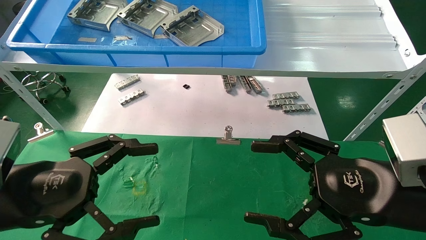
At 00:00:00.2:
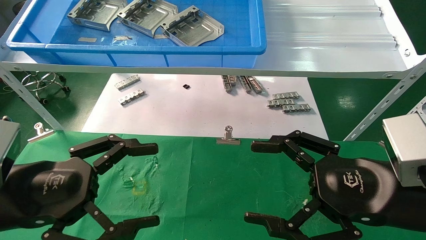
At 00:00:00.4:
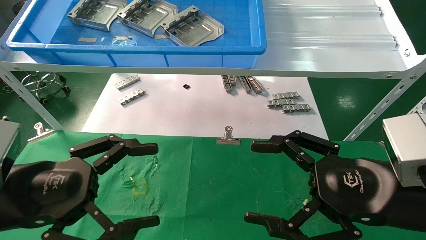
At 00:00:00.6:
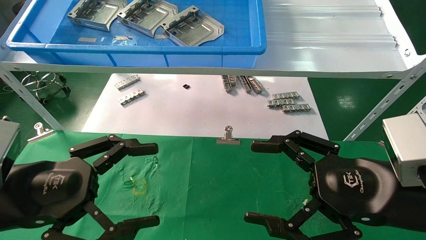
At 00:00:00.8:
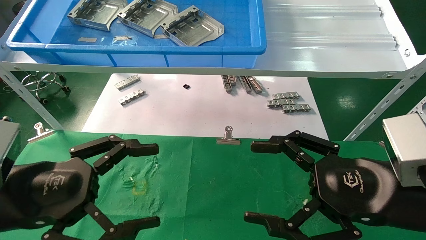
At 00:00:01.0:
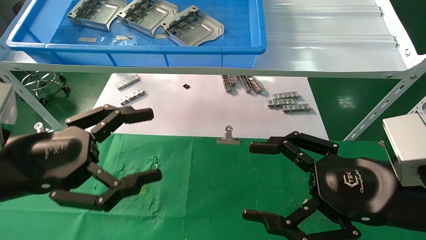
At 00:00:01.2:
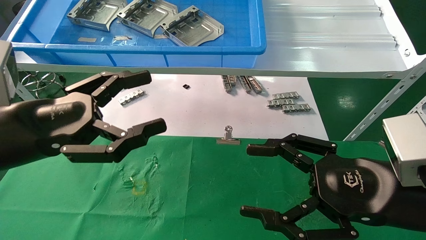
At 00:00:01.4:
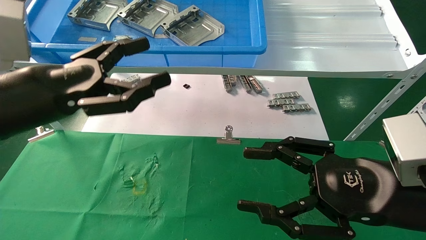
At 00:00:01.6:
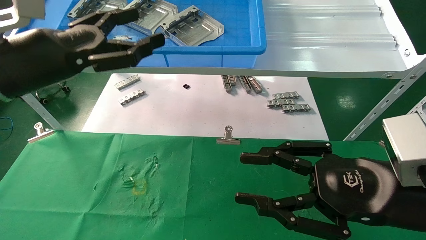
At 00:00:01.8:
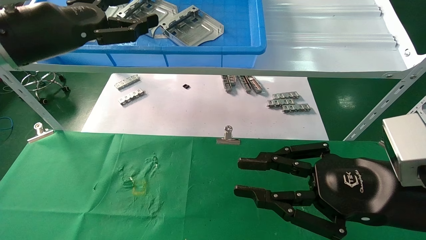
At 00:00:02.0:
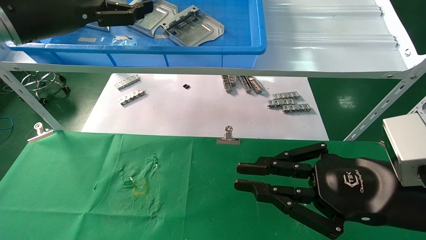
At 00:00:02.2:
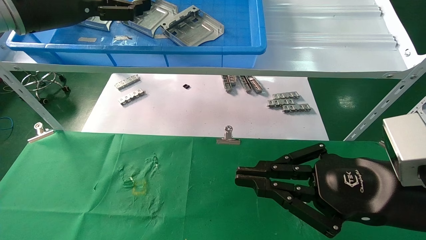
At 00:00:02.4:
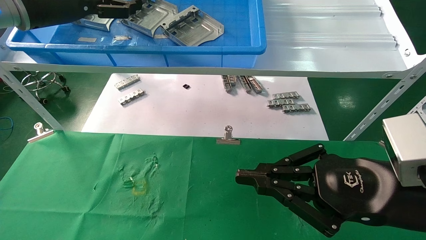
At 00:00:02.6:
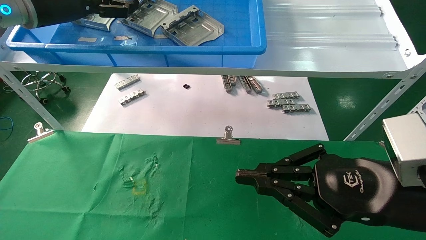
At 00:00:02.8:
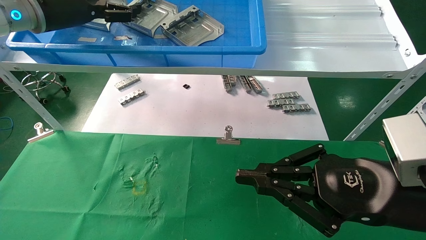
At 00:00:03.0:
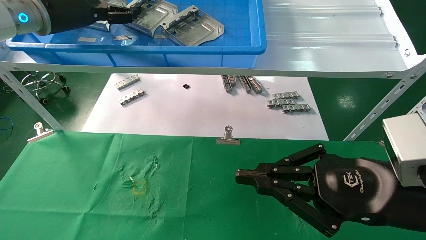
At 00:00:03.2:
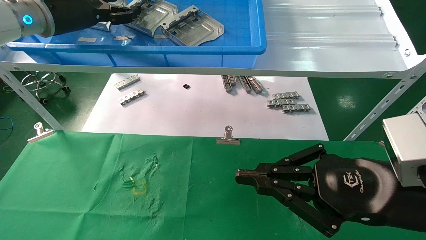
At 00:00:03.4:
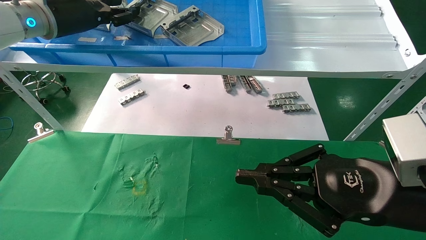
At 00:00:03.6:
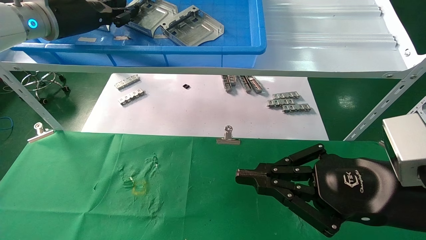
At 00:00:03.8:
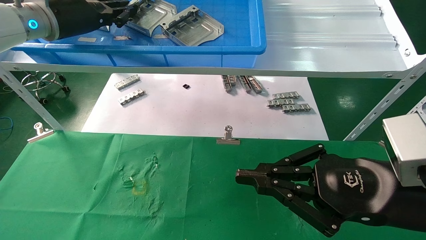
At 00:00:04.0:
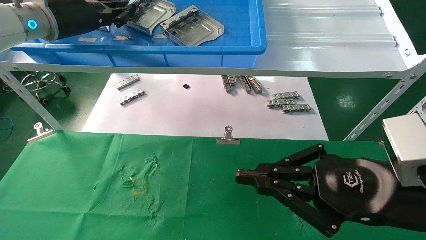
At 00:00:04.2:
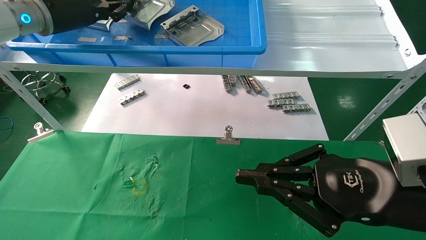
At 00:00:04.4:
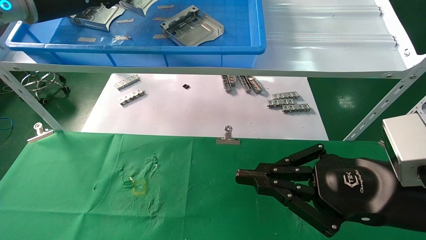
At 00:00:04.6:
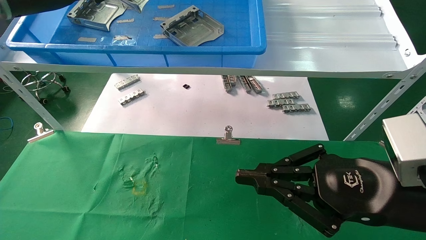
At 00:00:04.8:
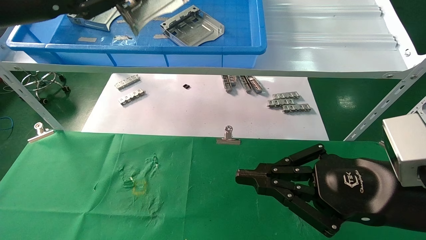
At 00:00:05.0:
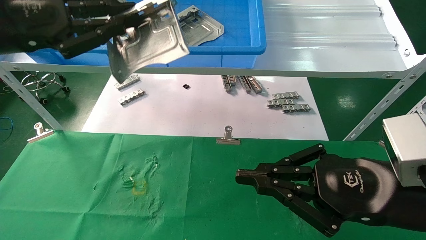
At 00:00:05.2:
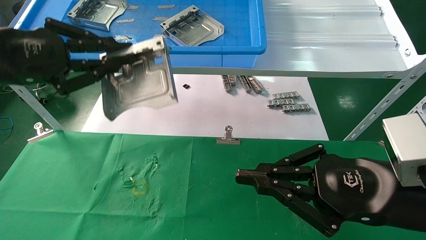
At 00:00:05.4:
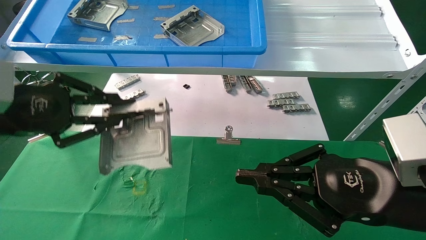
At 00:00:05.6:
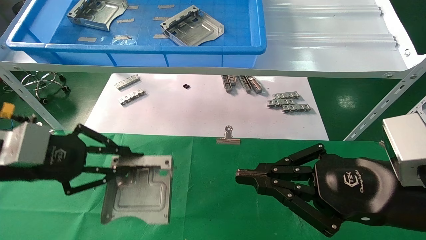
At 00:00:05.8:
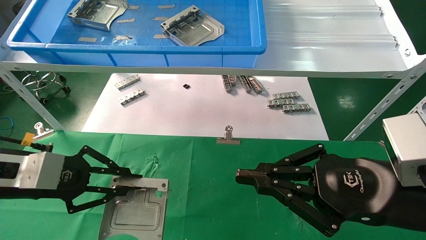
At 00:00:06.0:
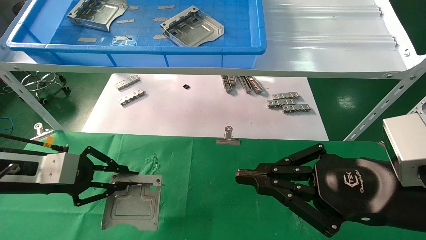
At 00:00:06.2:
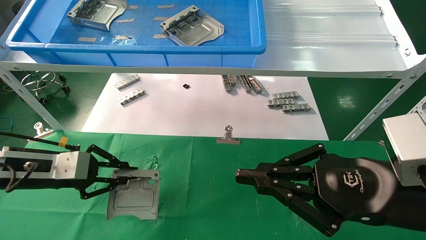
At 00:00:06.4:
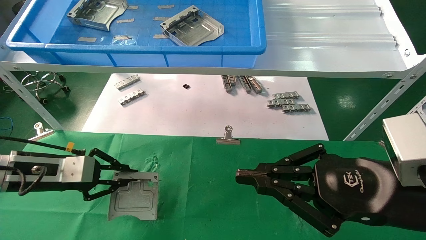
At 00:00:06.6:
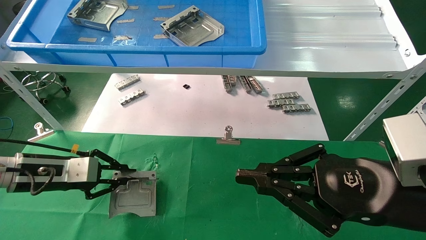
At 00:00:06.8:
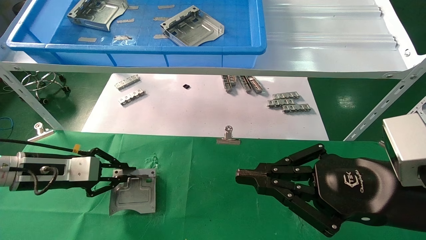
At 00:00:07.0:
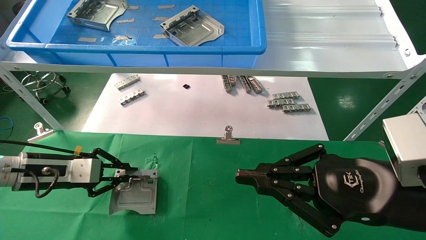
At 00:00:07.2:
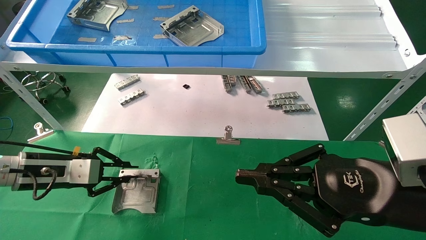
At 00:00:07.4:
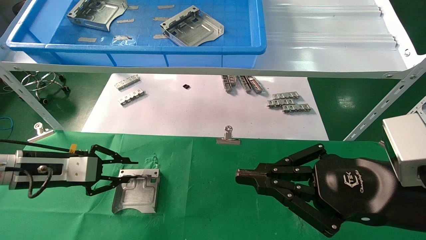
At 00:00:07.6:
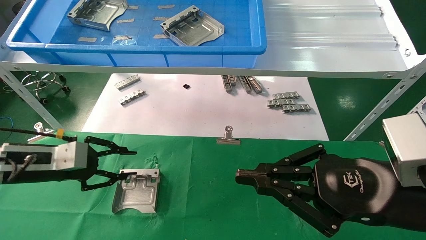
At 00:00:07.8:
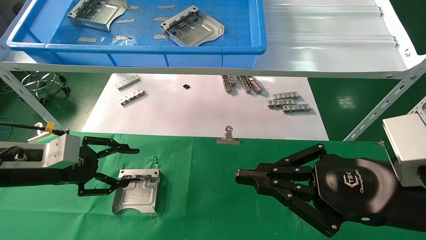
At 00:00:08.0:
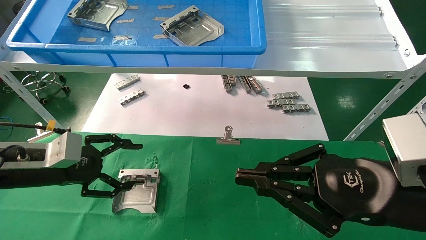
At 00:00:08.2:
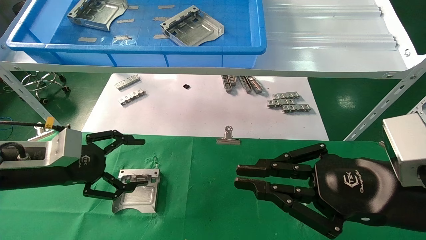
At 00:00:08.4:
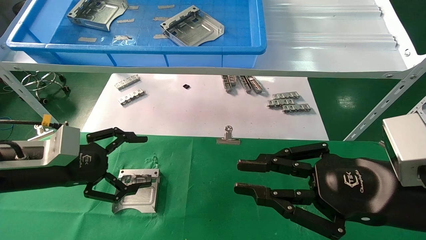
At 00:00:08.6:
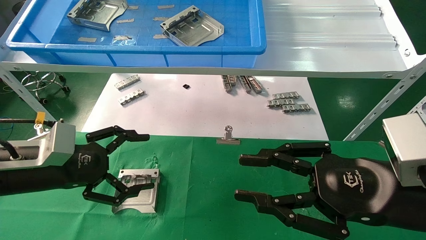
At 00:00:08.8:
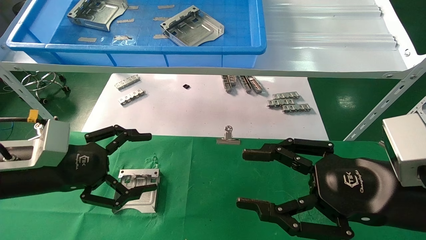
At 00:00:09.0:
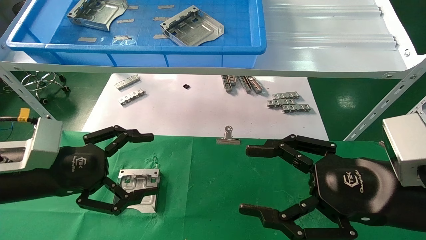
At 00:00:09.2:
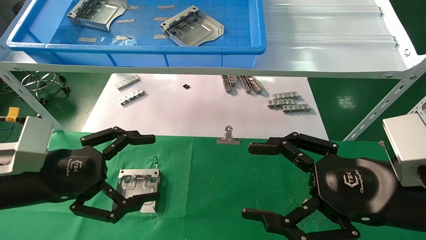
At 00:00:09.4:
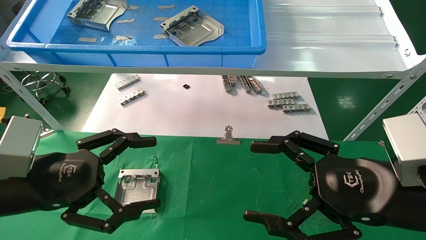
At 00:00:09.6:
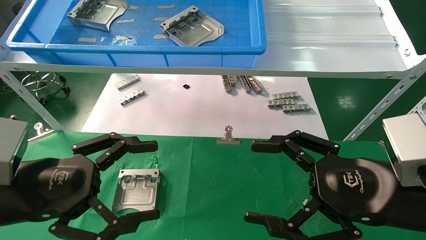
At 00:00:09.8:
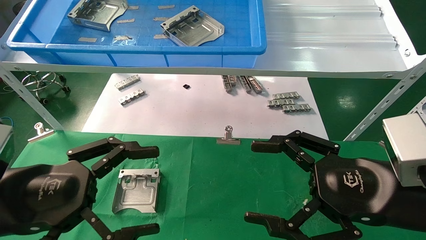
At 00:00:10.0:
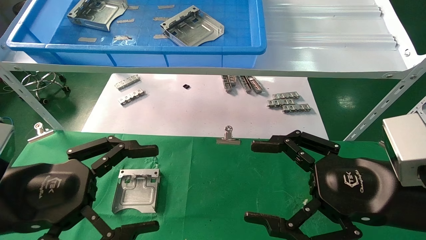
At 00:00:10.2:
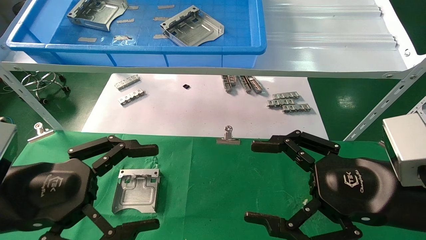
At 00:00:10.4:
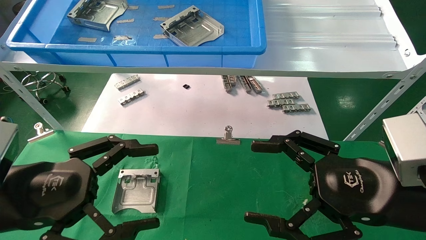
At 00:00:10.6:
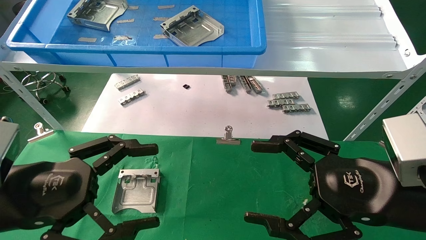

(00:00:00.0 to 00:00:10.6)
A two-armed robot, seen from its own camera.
Task of the whole recording: use the mechanical arm to pick up the parts and place them on the table.
Step, 00:00:01.2 - 00:00:04.2: Pick up the hard drive bracket from the feeding area.
Step, 00:00:04.4 - 00:00:07.4: Place the hard drive bracket into the box.
00:00:00.0 - 00:00:01.6: The left gripper travels upward and forward by approximately 15 cm. Meanwhile the right gripper closes its fingers.
00:00:01.6 - 00:00:03.0: The right gripper closes up; the left gripper is displaced forward and upward by some 15 cm.
00:00:03.0 - 00:00:04.6: The left gripper is displaced backward by roughly 5 cm, and closes.
00:00:04.6 - 00:00:06.0: The left gripper goes approximately 25 cm downward.
00:00:07.6 - 00:00:09.0: The right gripper opens, while the left gripper heads backward and to the right, covering approximately 10 cm, and opens its fingers.
00:00:09.0 - 00:00:10.6: The left gripper is displaced backward by roughly 5 cm. The right gripper opens up.
